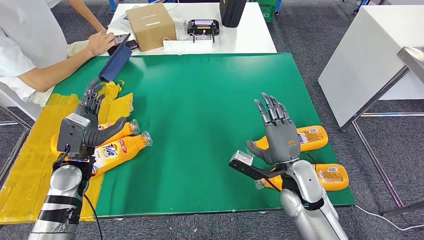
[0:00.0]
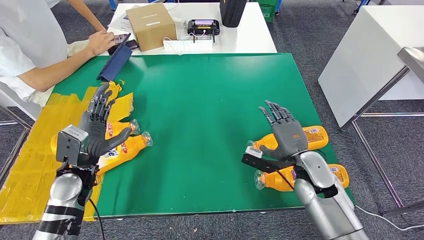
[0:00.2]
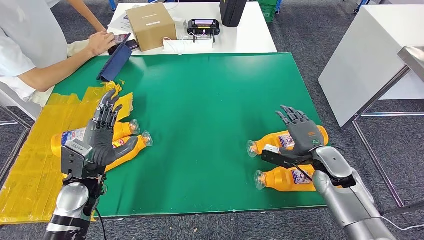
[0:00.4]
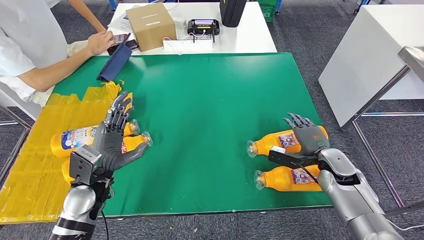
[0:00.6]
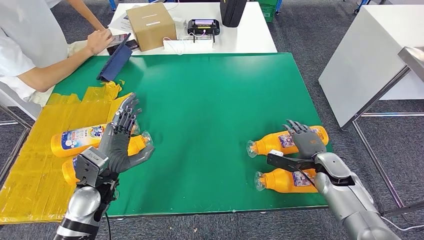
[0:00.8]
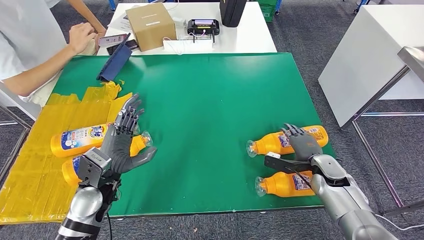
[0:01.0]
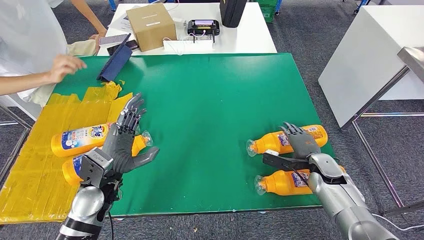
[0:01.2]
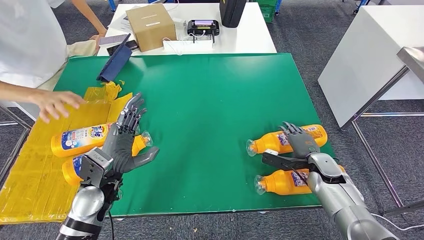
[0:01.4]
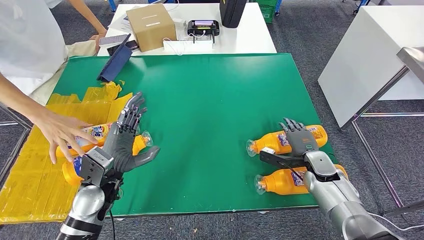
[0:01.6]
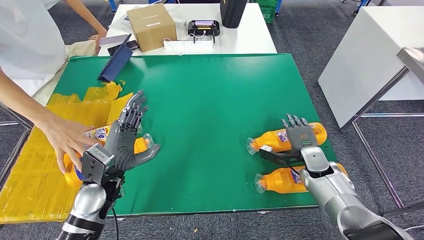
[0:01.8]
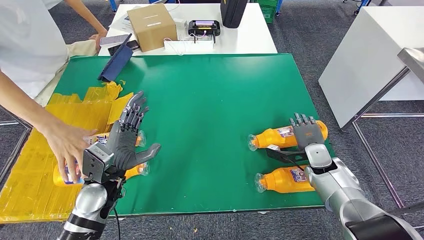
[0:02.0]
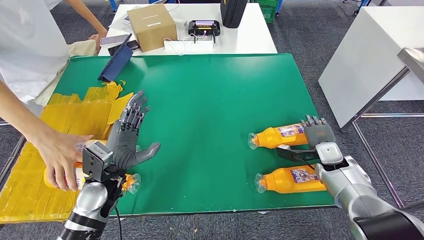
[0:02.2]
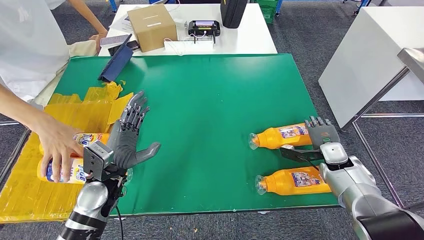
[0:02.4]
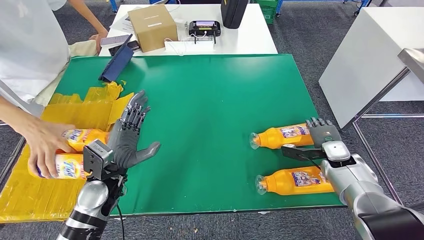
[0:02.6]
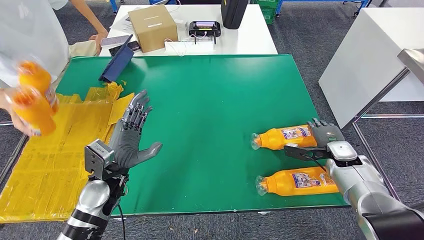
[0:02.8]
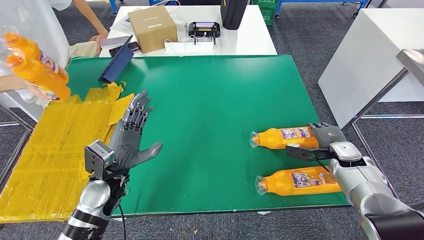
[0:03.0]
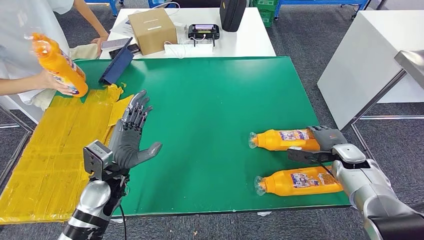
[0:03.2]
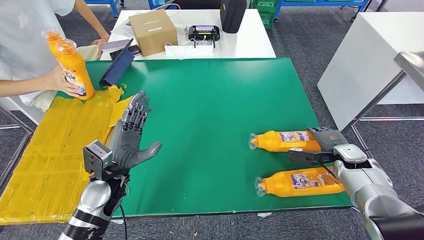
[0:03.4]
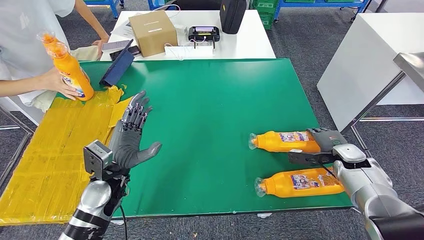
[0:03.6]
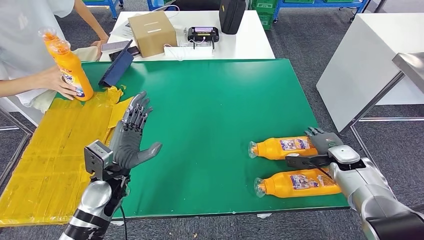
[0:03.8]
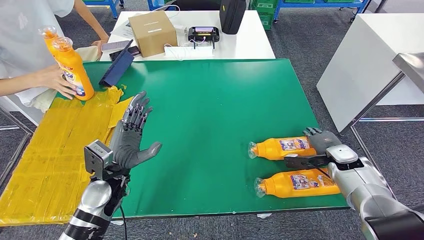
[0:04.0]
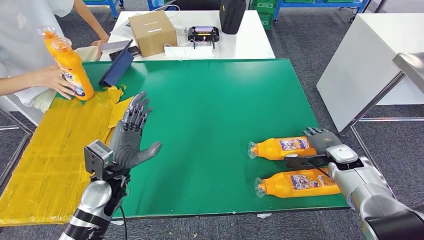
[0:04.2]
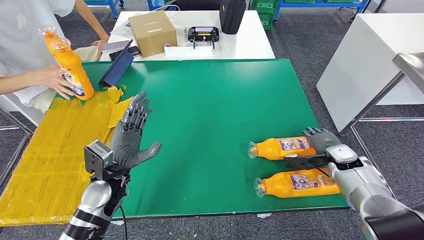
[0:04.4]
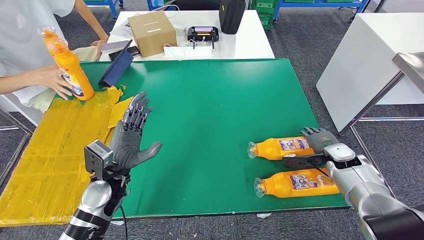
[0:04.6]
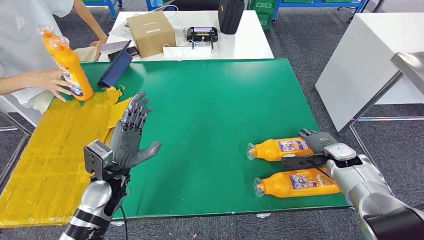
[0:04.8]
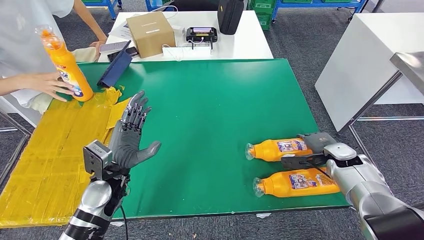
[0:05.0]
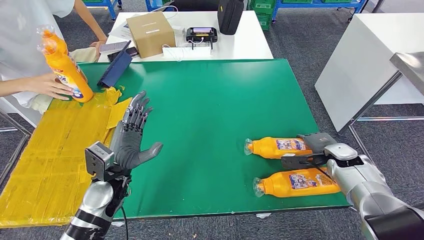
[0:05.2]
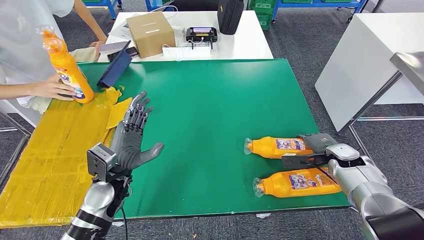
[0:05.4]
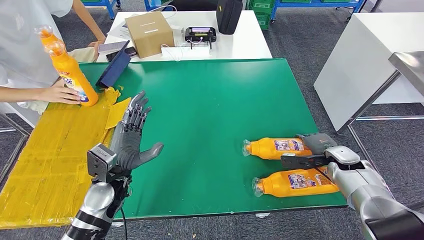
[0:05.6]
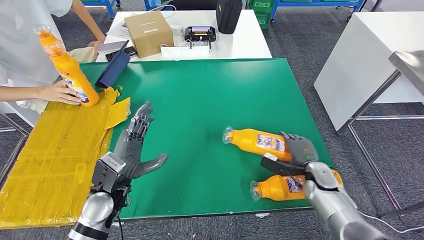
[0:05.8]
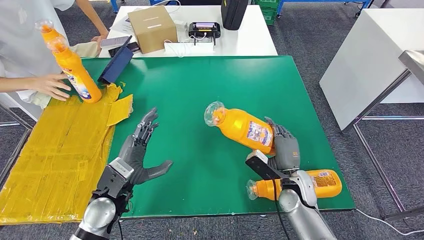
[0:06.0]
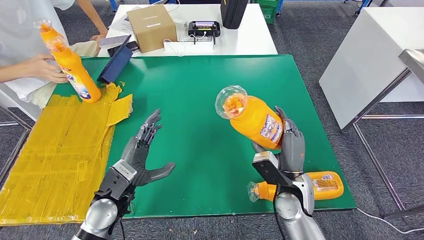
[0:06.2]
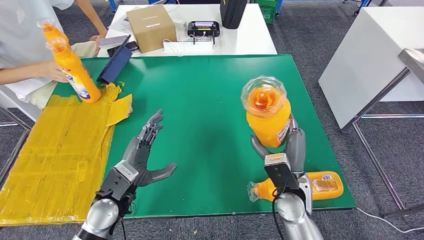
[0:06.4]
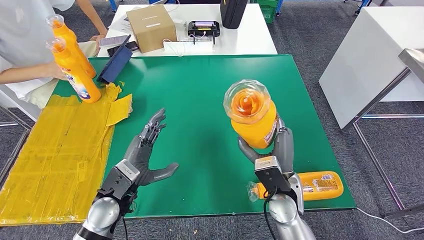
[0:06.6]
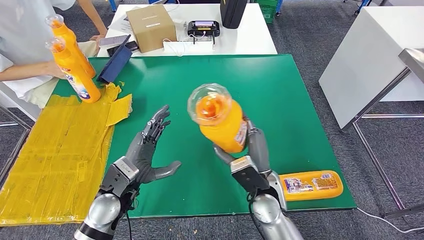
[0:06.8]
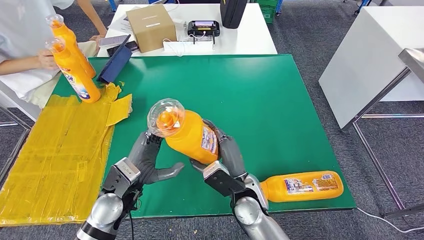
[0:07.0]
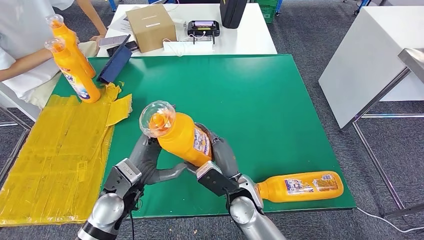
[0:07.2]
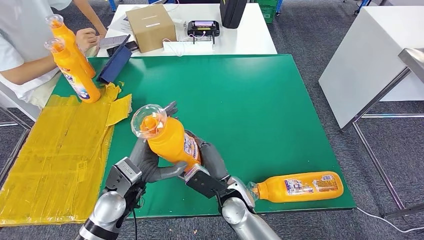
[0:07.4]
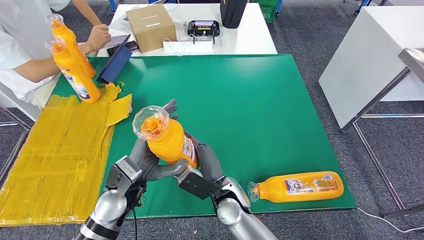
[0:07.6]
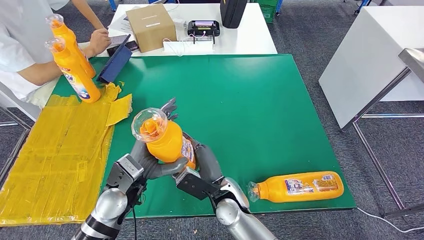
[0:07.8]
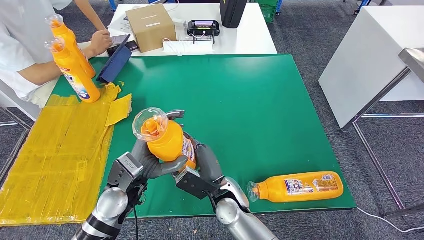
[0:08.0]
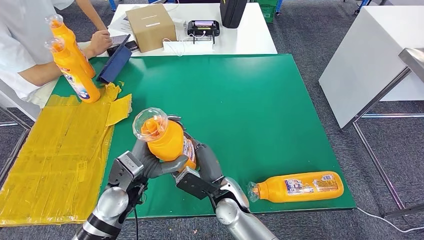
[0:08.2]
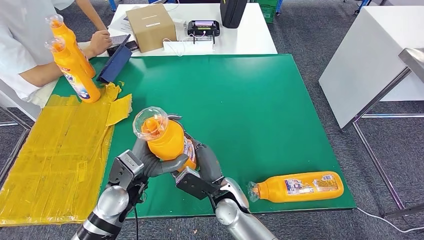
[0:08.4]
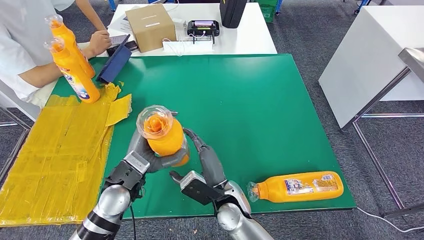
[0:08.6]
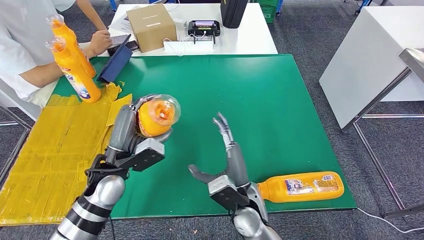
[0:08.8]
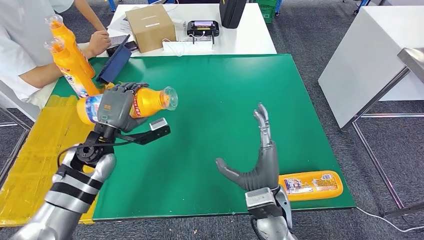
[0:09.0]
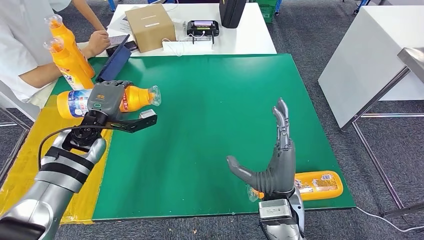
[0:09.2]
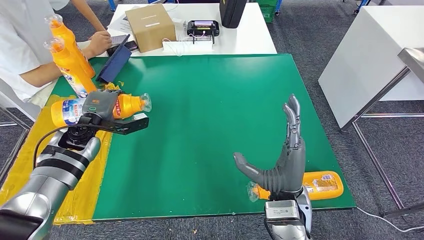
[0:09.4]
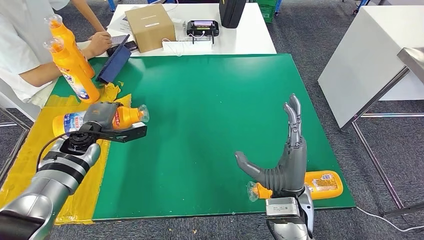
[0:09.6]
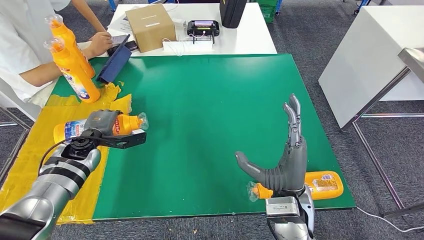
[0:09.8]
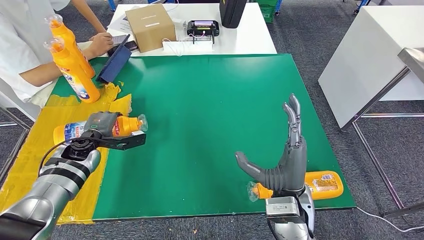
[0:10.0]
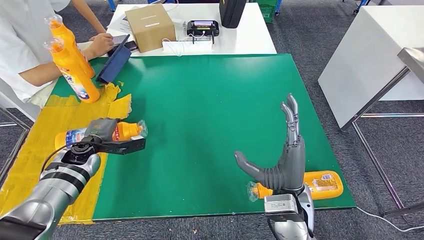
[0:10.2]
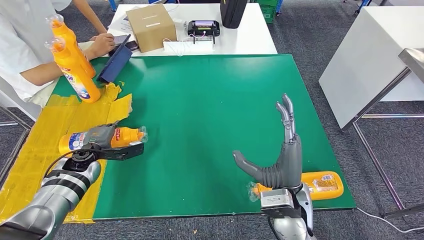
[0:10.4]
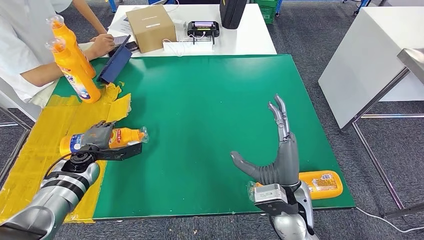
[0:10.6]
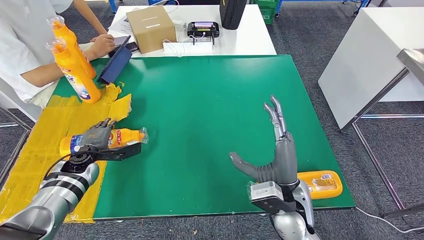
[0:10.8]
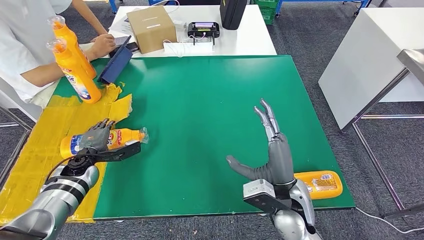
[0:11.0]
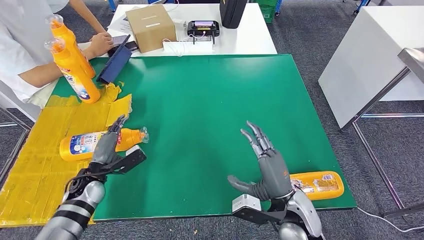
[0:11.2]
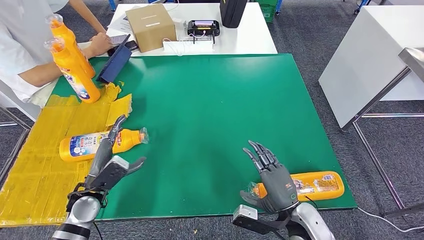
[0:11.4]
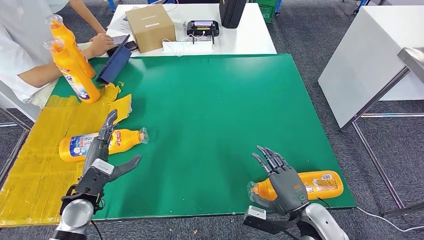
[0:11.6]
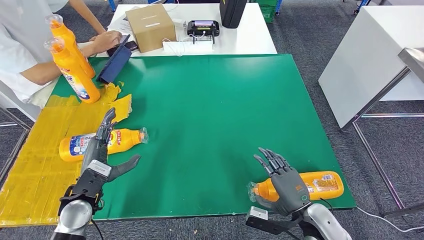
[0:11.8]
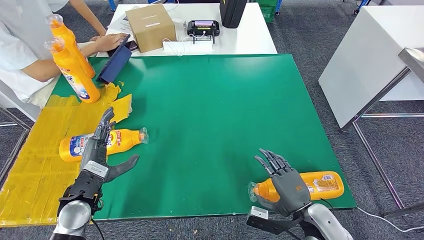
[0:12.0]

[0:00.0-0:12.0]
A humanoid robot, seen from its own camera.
Step, 0:00.0 to 0:07.2: Pick up the bottle from the table.
Step, 0:07.4 to 0:09.2: Flip the bottle to face forward.
0:09.0 to 0:10.4: The left hand is displaced downward and to the left by approximately 15 cm.
0:10.4 to 0:12.0: The left hand moves backward, roughly 15 cm. The right hand is displaced to the right and downward by roughly 15 cm.

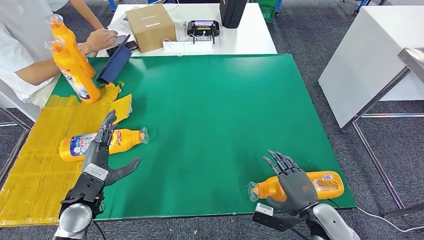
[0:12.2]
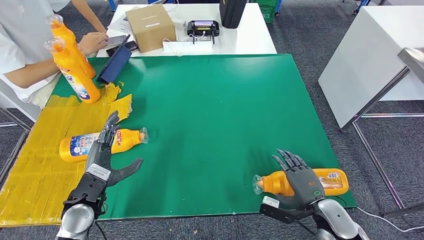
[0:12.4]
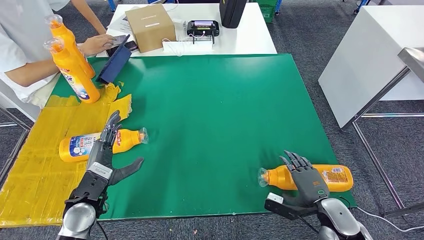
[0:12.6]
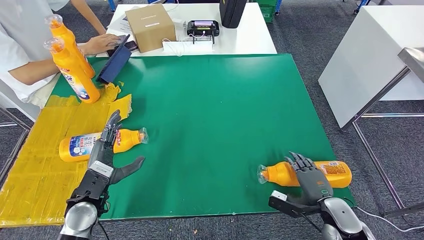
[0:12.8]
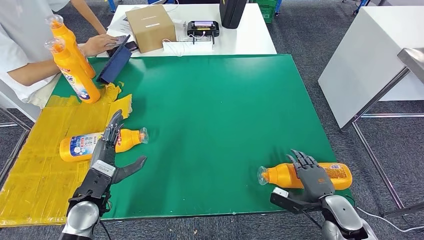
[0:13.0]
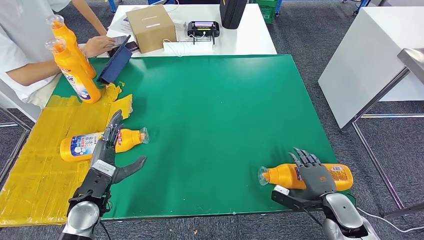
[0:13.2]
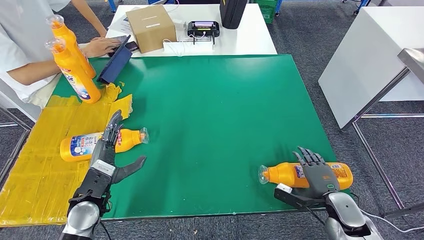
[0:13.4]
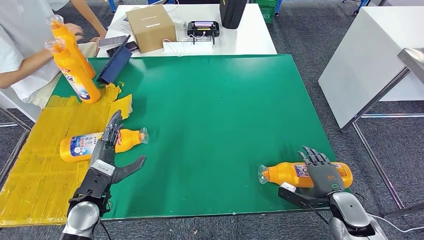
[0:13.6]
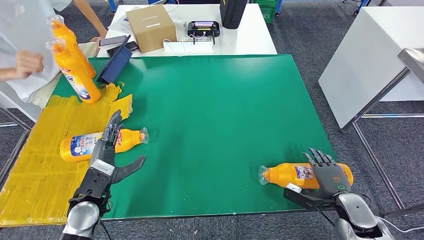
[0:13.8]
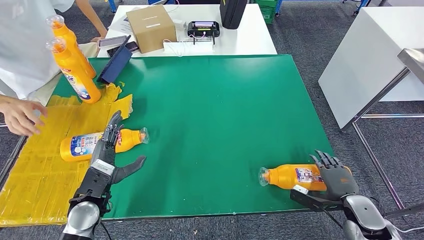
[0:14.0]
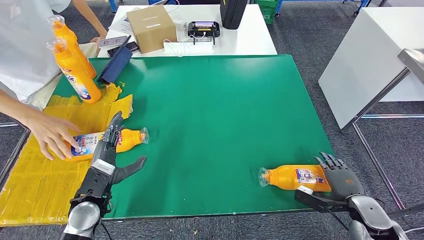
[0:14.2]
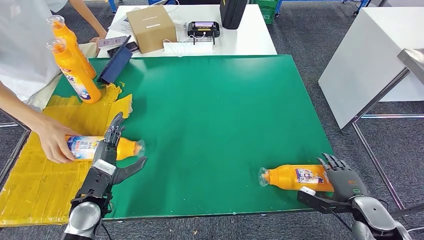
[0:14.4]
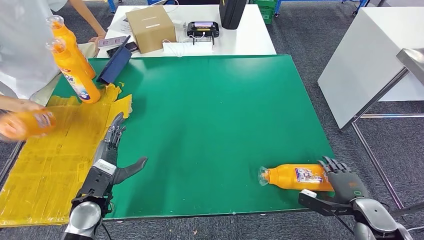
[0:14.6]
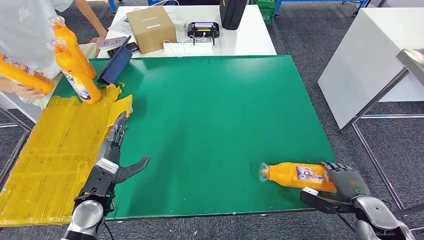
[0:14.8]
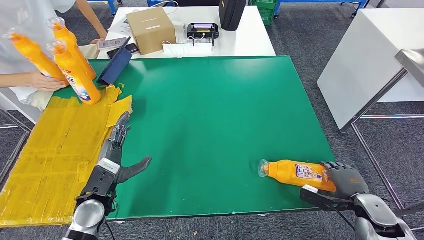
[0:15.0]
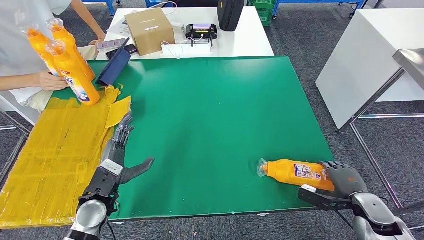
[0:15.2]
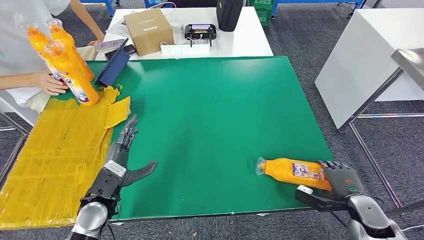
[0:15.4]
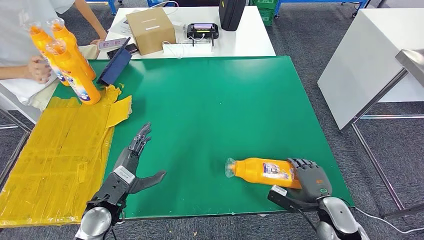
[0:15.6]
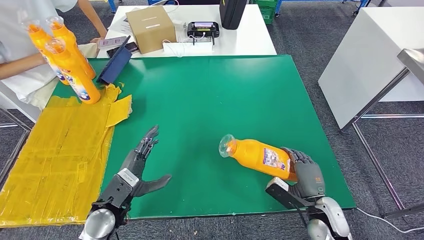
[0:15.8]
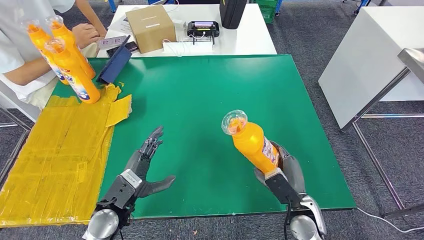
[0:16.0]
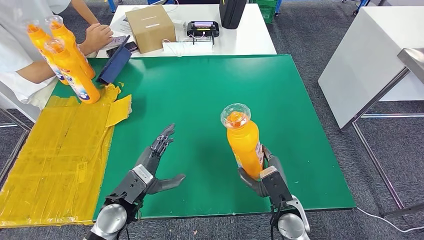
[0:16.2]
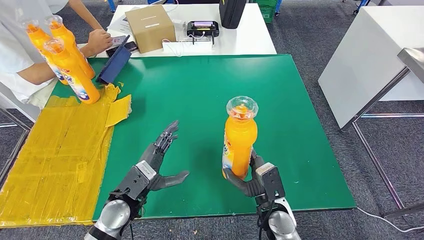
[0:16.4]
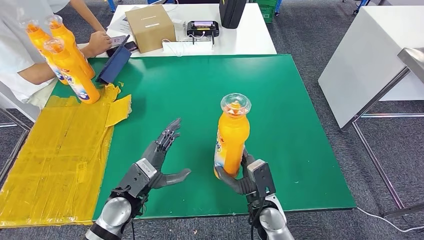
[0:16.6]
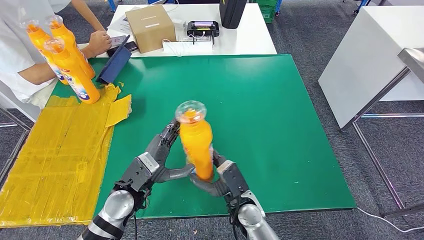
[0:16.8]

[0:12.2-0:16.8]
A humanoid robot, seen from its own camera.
Step, 0:12.2 to 0:16.2: Pick up the bottle from the table.
0:12.2 to 0:13.8: The right hand is displaced to the right by about 10 cm.
